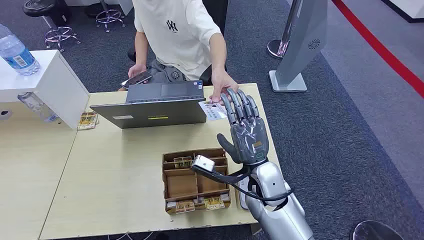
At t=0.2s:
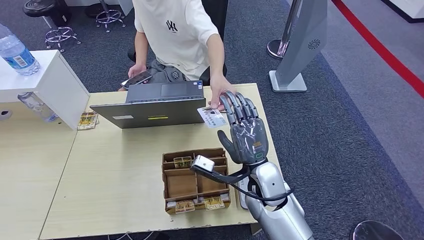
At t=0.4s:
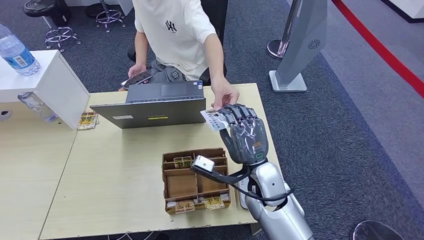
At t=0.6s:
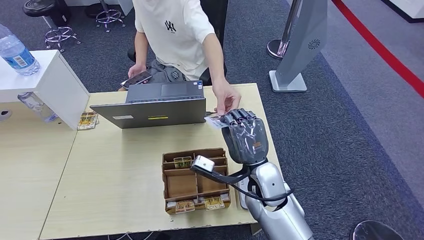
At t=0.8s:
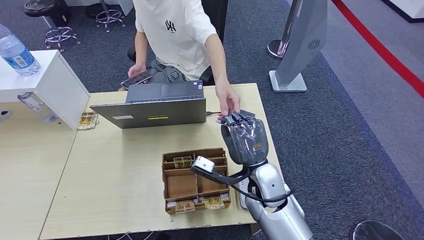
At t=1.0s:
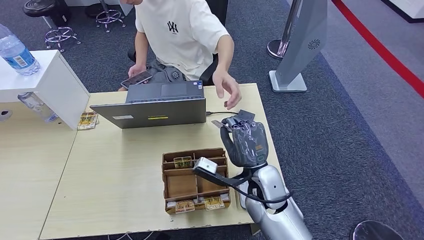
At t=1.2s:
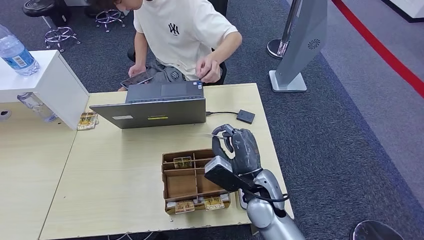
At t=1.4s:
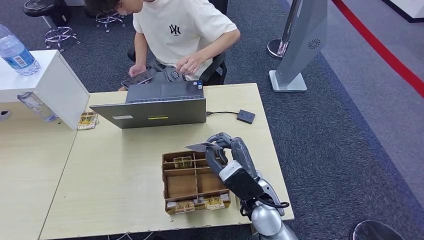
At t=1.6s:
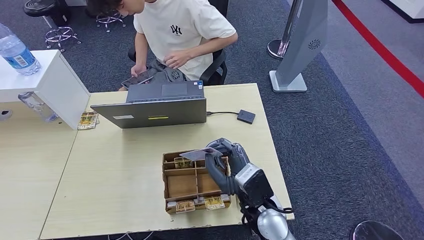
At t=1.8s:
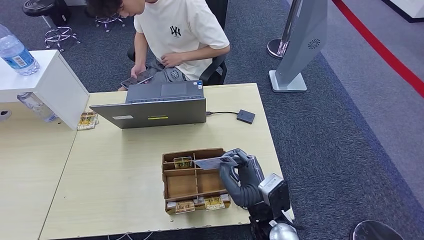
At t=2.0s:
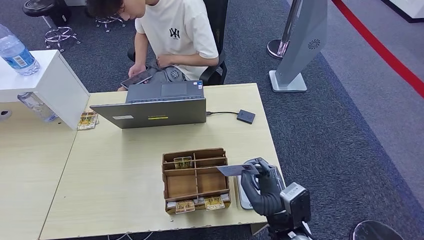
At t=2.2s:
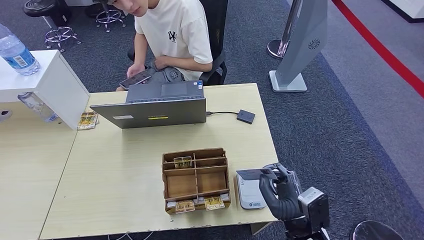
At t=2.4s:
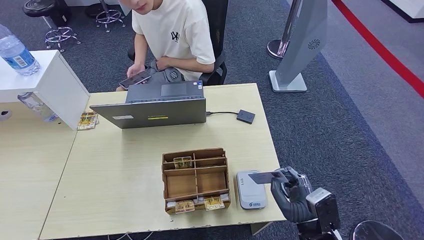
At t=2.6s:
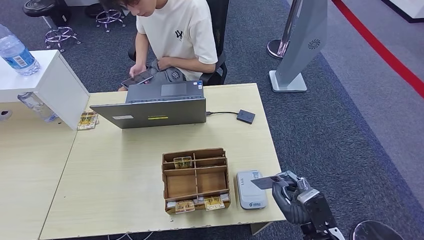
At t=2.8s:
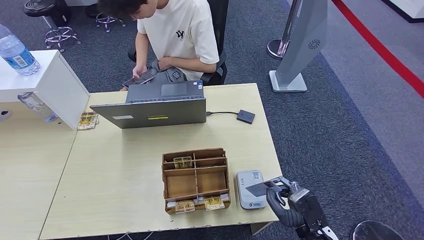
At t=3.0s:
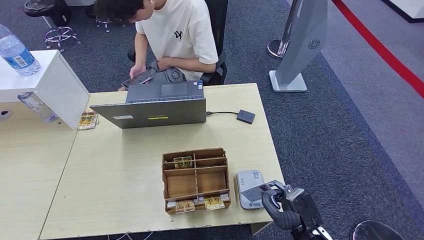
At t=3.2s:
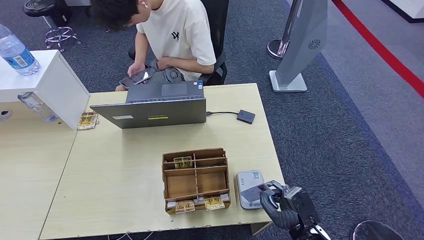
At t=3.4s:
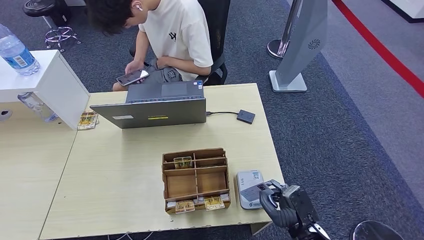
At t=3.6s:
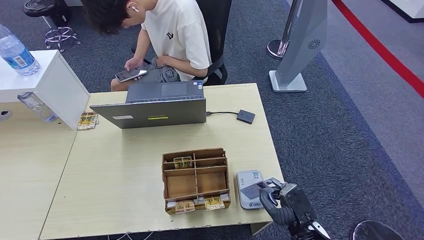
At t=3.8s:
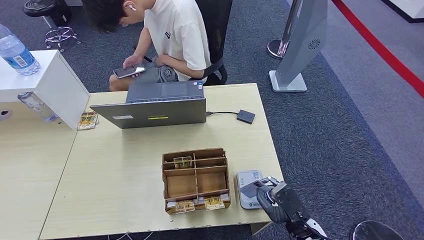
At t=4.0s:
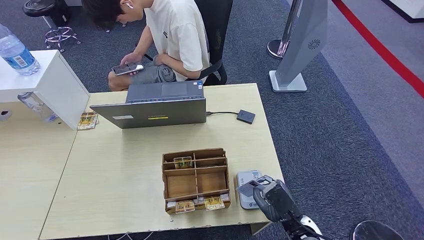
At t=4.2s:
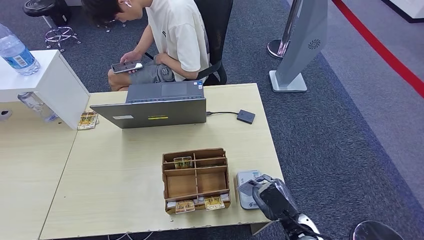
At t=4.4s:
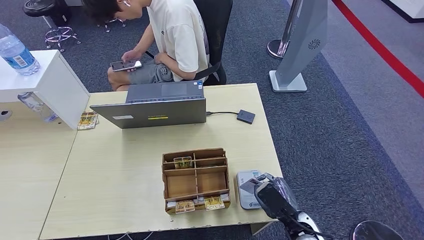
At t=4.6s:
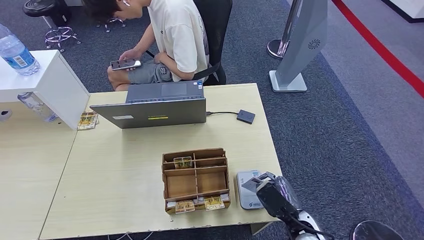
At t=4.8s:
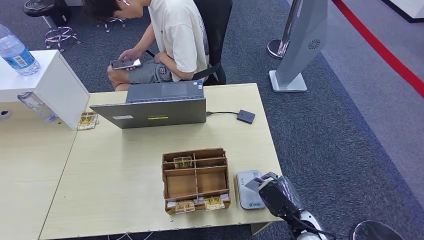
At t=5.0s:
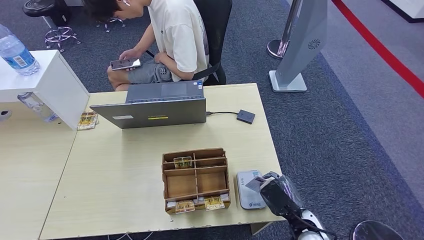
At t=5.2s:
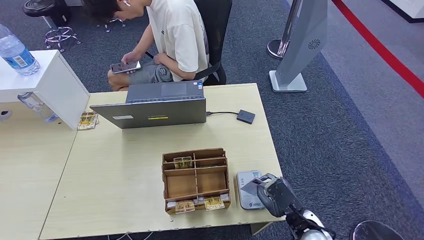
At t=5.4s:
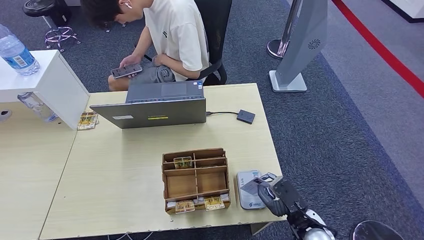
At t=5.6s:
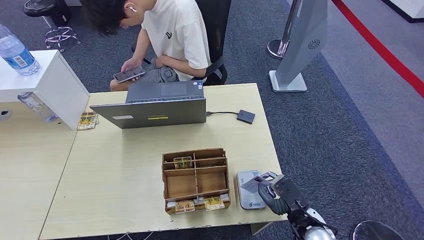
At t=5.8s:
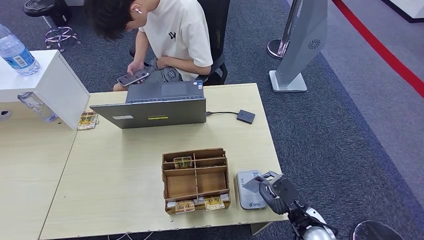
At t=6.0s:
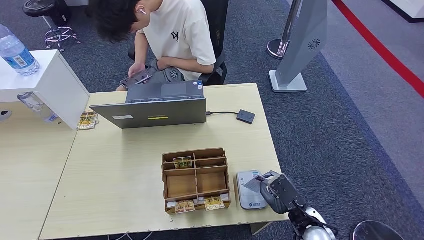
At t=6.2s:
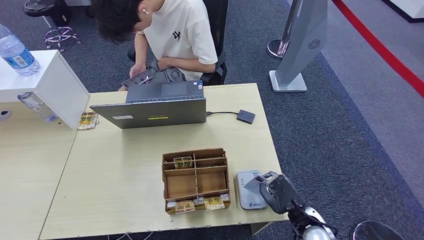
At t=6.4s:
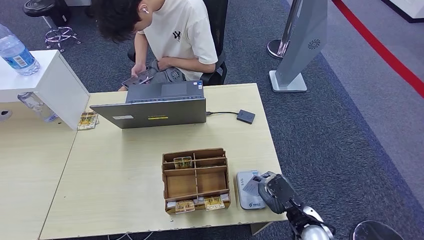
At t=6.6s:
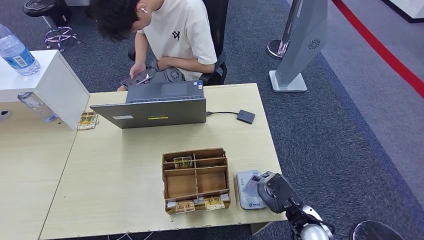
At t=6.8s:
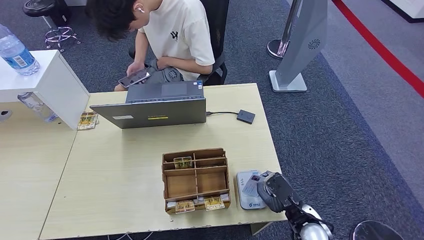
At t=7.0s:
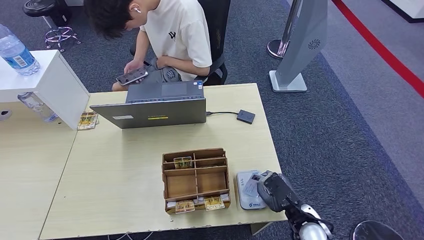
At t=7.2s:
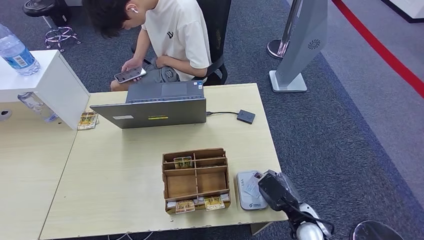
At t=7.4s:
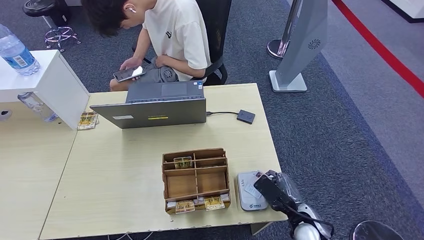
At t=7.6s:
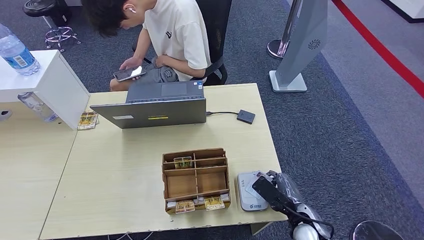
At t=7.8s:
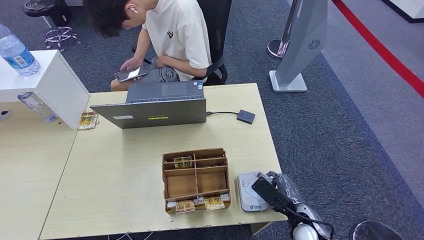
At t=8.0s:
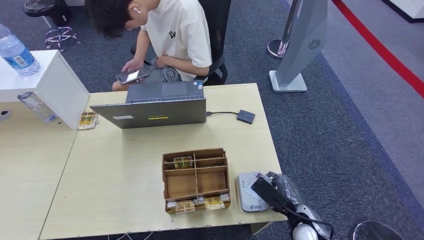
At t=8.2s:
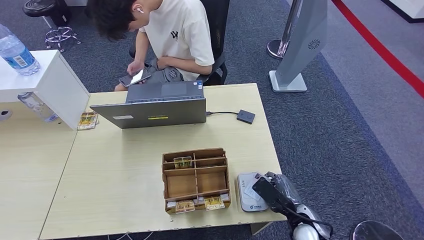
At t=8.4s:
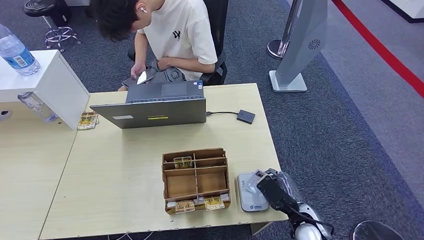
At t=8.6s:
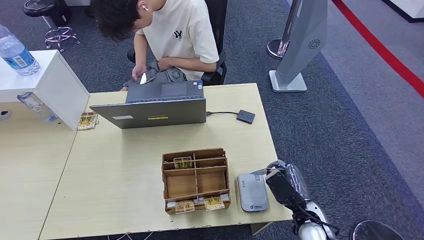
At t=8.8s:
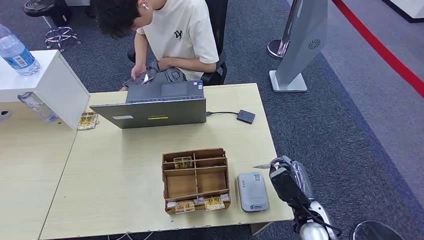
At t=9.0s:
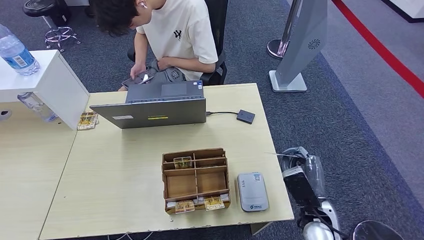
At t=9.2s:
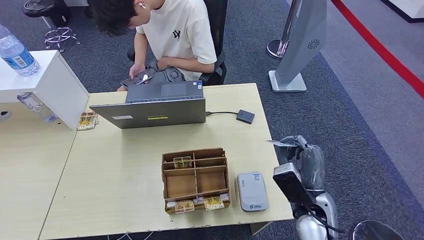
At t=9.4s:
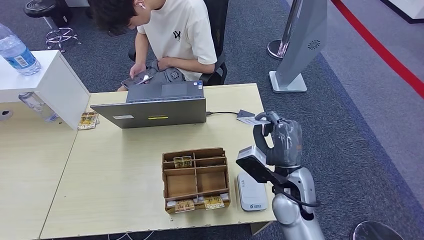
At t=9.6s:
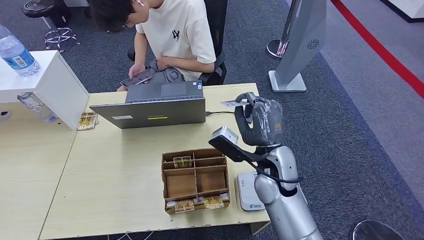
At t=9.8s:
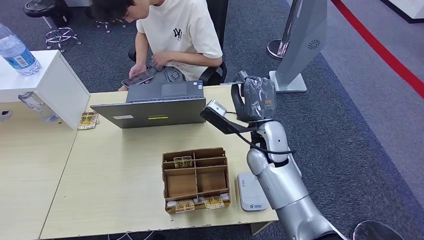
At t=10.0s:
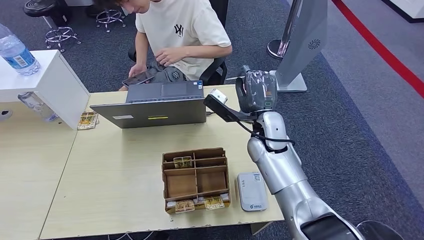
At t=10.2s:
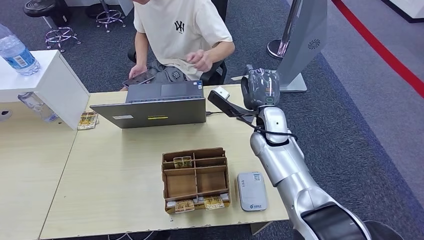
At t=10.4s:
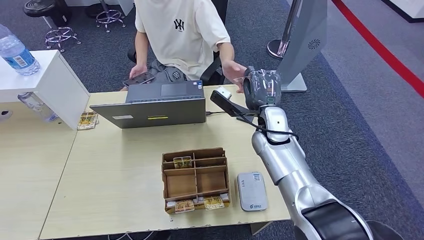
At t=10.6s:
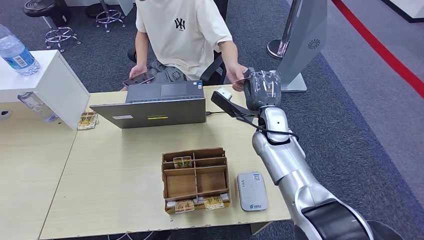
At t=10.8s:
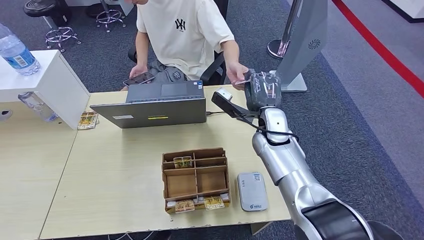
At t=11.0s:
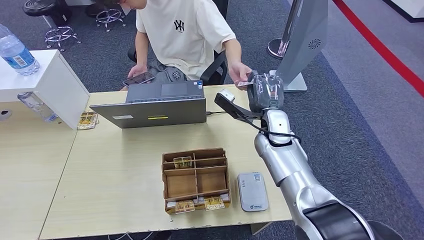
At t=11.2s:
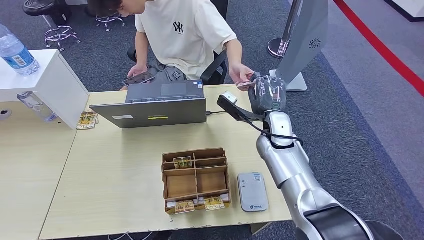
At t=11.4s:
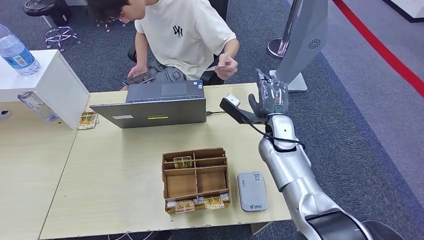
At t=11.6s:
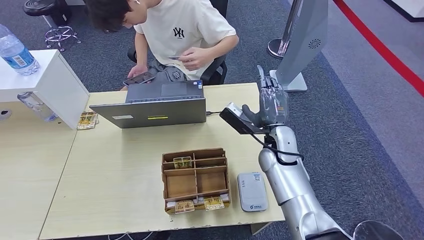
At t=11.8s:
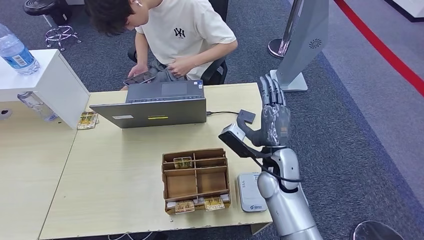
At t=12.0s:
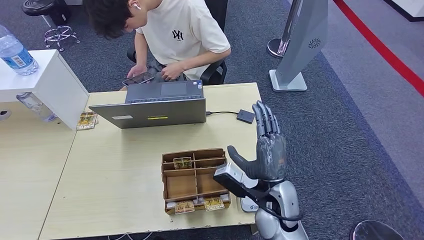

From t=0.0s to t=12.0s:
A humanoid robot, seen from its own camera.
Step, from t=0.0s to t=1.2s: Take the ID card from the person's hand.
Step, from t=1.4s to t=4.4s: Place the ID card on the card reader.
Step, from t=4.6s to t=11.2s: Hand the ID card to the person.
From t=1.6s to t=3.0s: The right hand goes some 20 cm to the right, downward and backward.
From t=4.4s to t=6.0s: There are only small adjustments of the hands.
From t=7.6s to t=9.0s: The right hand moves upward, some 5 cm.
From t=9.0s to t=10.4s: The left hand moves forward, approximately 5 cm. Meanwhile the right hand moves forward, upward and to the left, roughly 25 cm.
From t=10.4s to t=12.0s: The right hand moves backward, approximately 15 cm.

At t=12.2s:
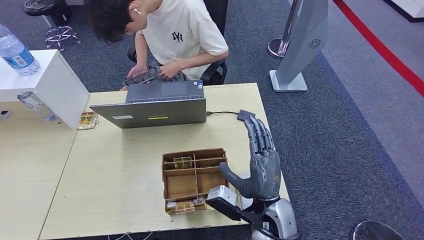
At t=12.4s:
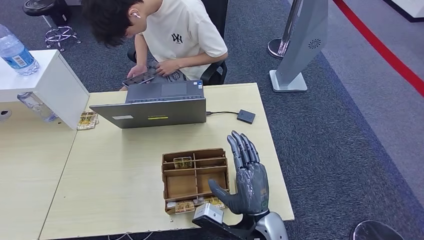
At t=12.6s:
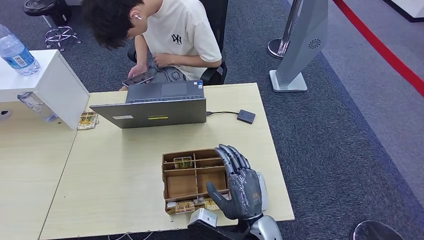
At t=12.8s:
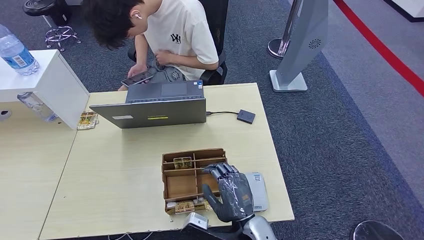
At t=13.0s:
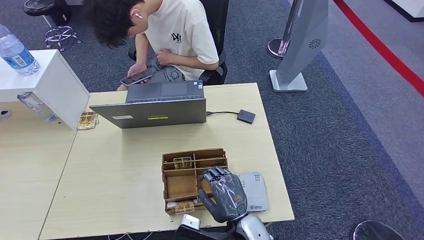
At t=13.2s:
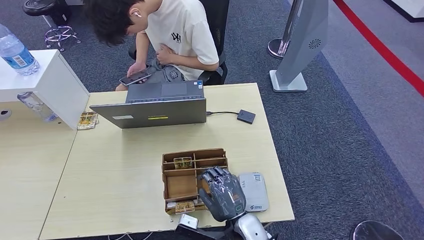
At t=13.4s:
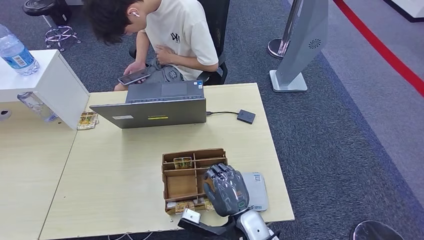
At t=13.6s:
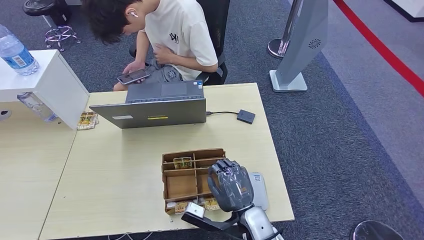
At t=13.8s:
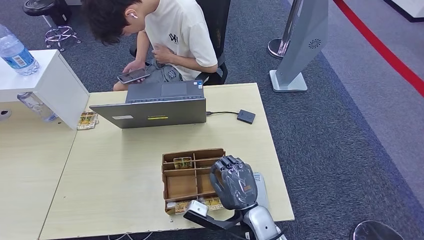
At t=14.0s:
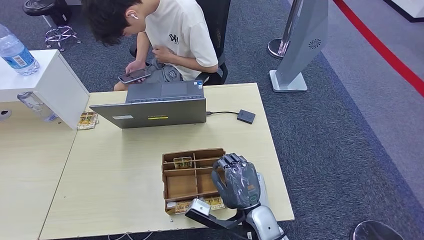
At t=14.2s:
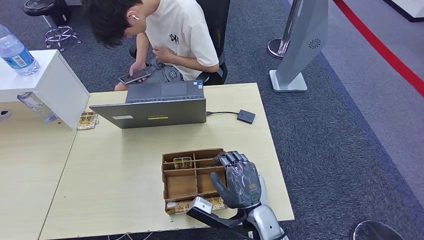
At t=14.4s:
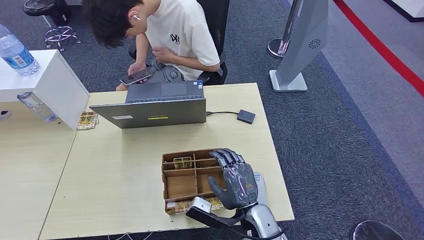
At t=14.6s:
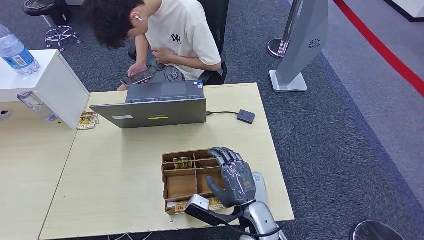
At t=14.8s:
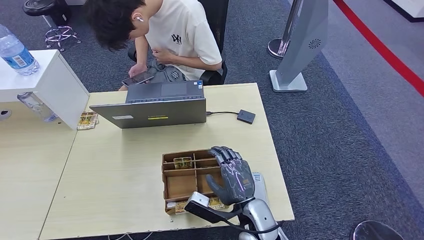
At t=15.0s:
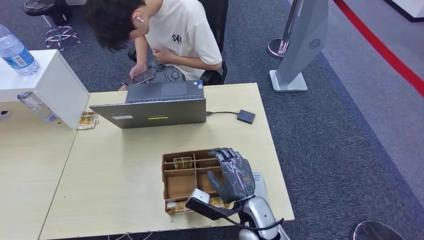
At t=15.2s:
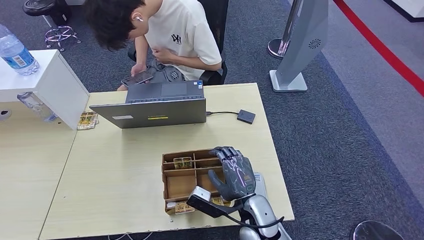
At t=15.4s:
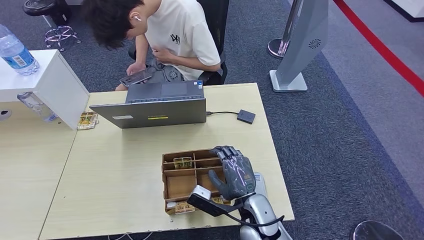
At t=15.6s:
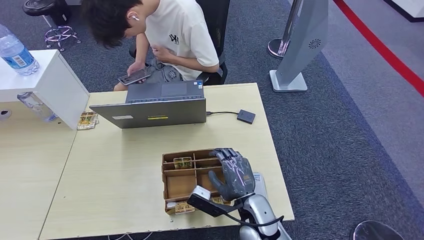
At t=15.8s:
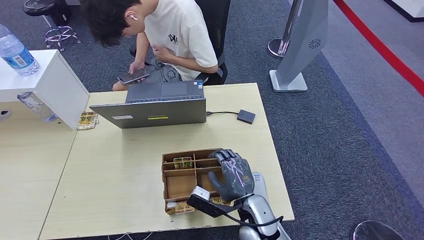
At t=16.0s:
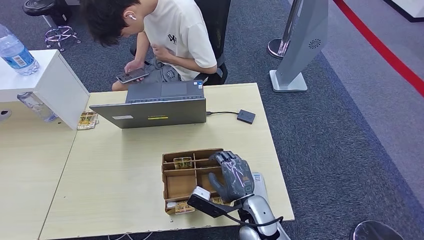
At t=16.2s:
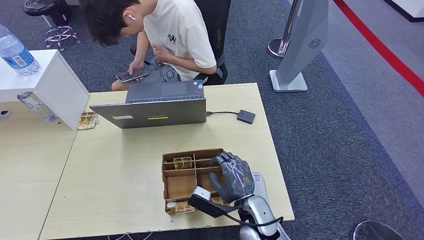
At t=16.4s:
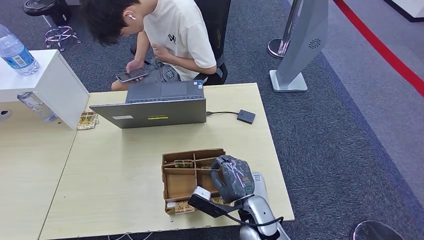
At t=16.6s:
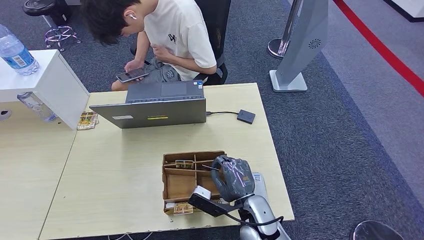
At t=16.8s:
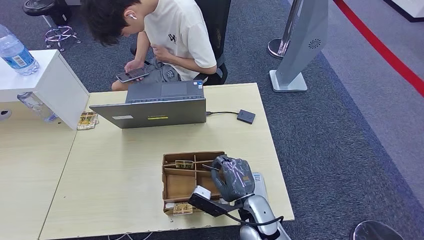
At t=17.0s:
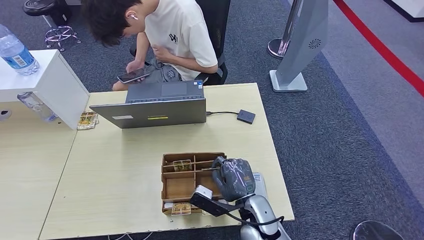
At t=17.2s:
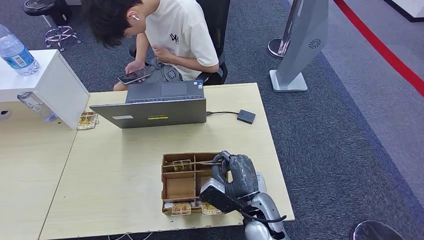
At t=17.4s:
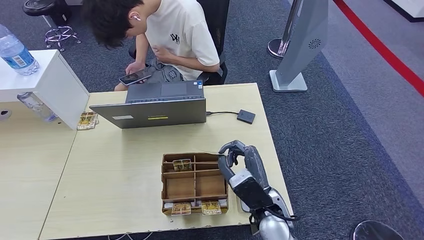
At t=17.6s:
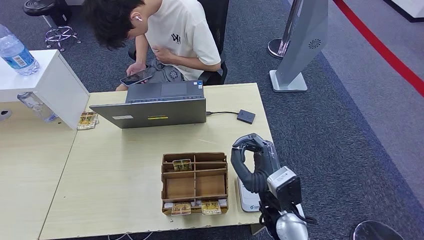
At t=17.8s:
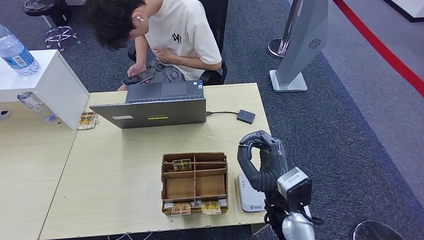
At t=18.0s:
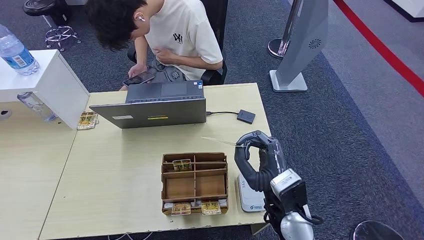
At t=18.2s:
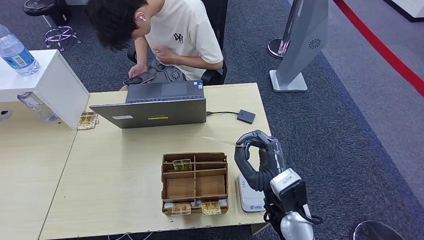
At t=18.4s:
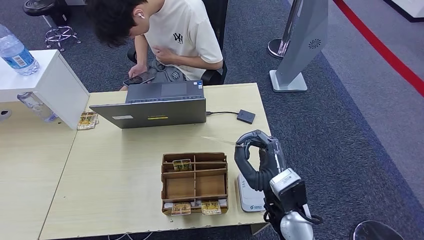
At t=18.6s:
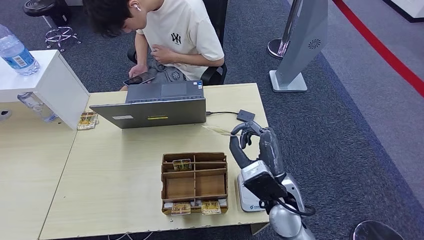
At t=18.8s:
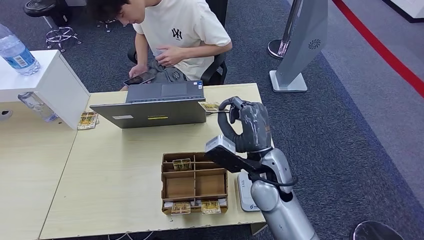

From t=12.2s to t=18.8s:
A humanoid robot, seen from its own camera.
Step, from t=12.2s to t=18.2s: Pick up the room key from the key card box.
From t=13.8s to t=15.4s: The hands move only a little.
From t=15.4s to t=17.2s: There are only small adjustments of the hands.
From t=17.2s to t=18.8s: The right hand travels upward and forward by approximately 15 cm.
